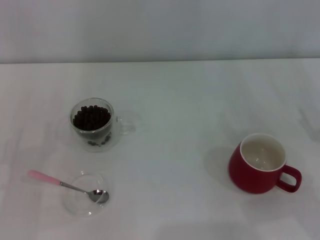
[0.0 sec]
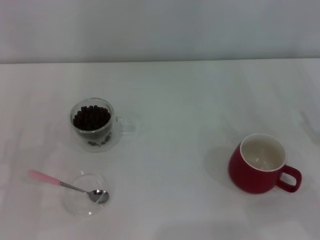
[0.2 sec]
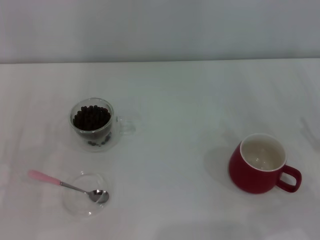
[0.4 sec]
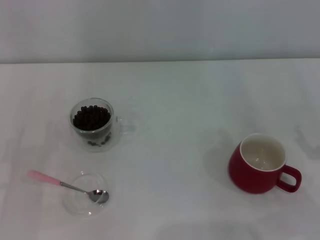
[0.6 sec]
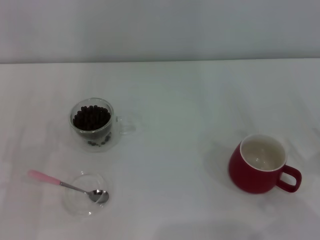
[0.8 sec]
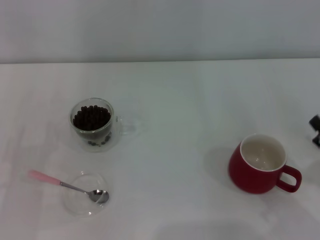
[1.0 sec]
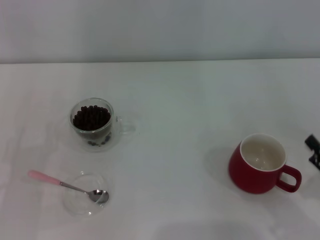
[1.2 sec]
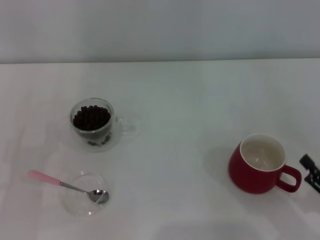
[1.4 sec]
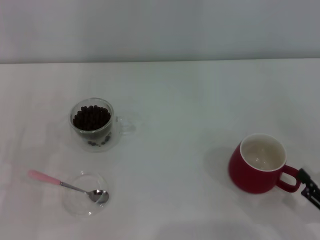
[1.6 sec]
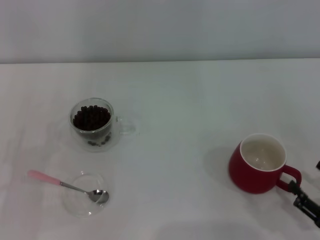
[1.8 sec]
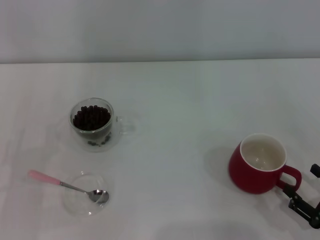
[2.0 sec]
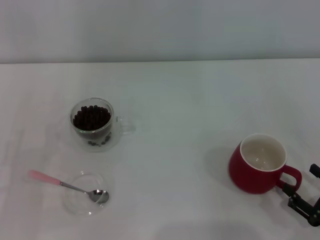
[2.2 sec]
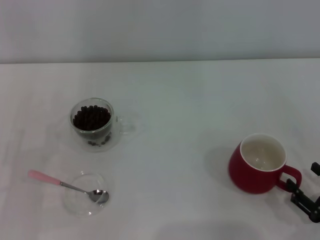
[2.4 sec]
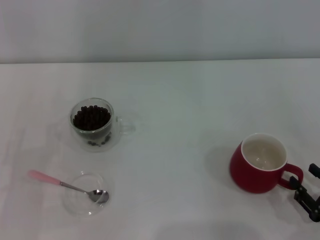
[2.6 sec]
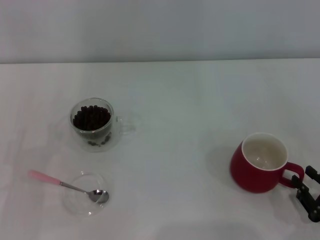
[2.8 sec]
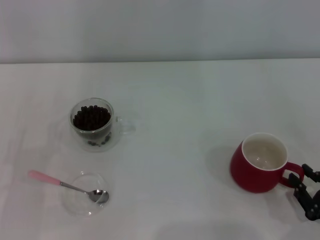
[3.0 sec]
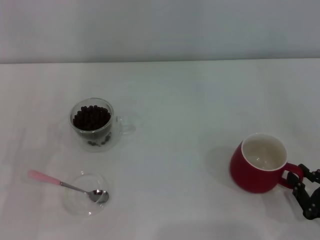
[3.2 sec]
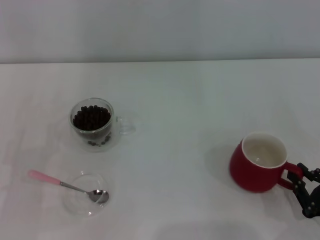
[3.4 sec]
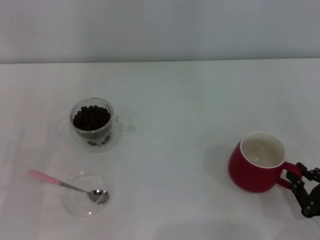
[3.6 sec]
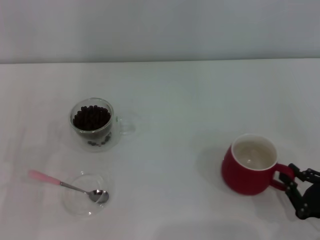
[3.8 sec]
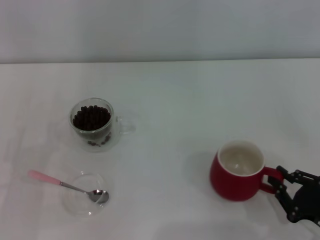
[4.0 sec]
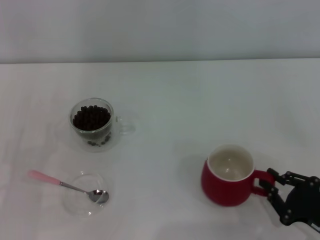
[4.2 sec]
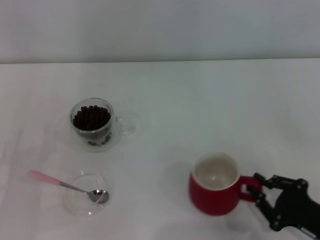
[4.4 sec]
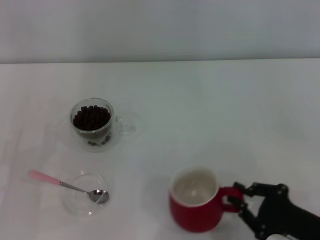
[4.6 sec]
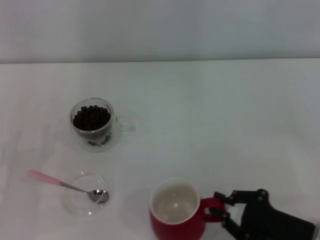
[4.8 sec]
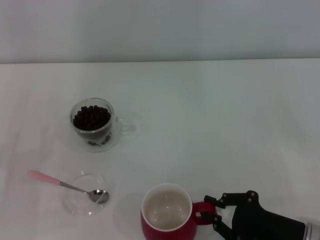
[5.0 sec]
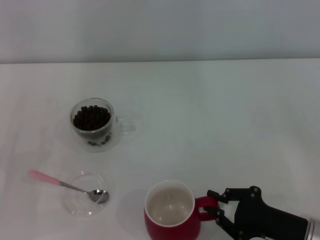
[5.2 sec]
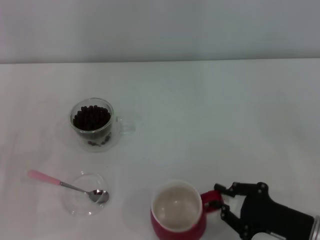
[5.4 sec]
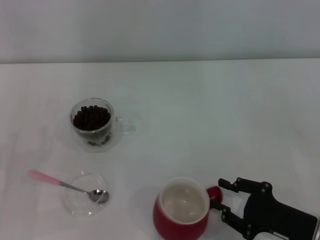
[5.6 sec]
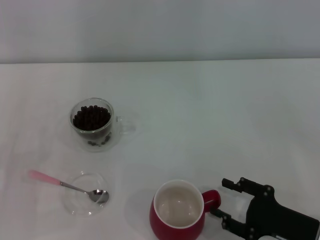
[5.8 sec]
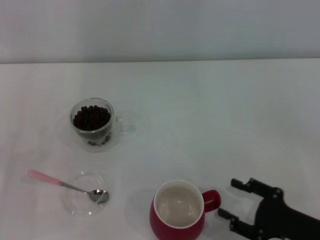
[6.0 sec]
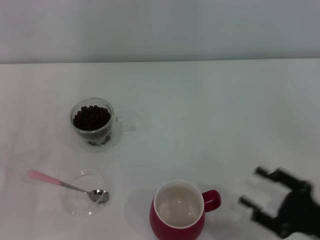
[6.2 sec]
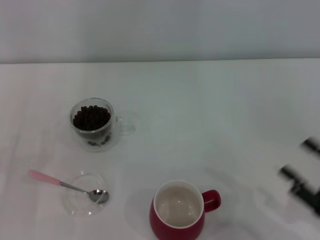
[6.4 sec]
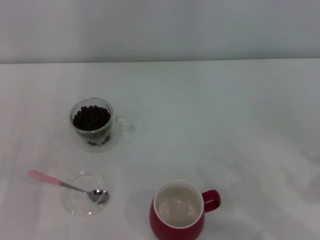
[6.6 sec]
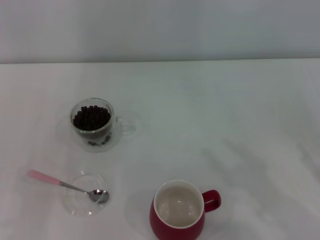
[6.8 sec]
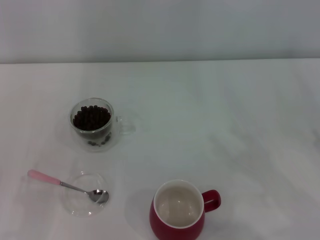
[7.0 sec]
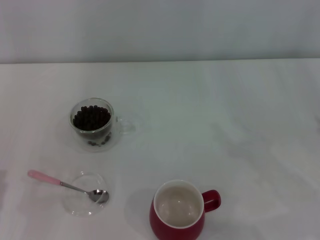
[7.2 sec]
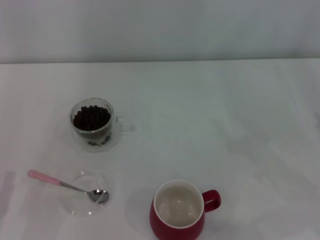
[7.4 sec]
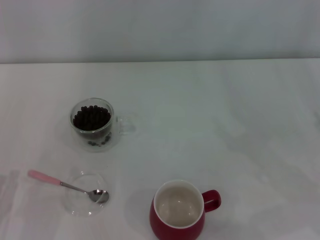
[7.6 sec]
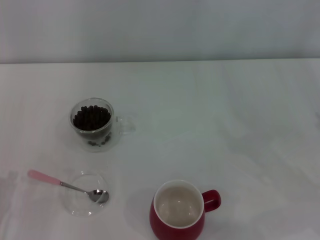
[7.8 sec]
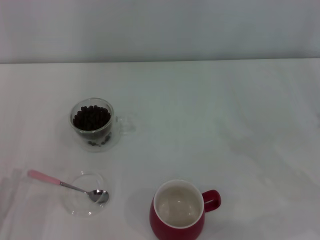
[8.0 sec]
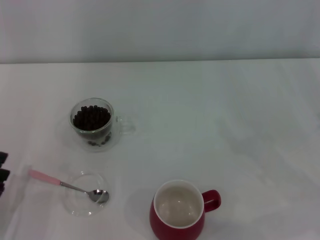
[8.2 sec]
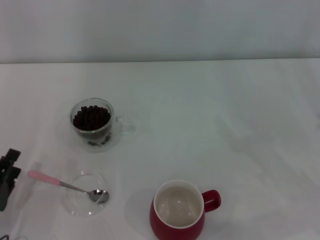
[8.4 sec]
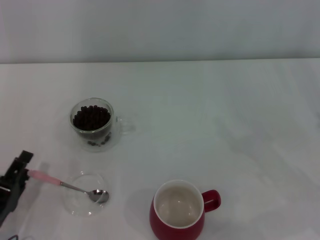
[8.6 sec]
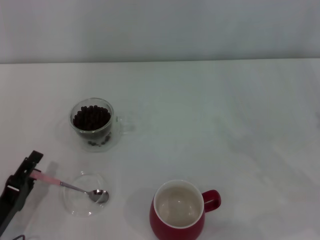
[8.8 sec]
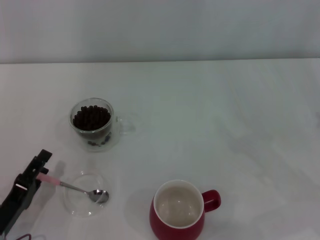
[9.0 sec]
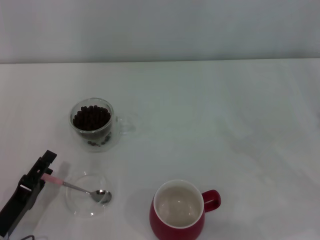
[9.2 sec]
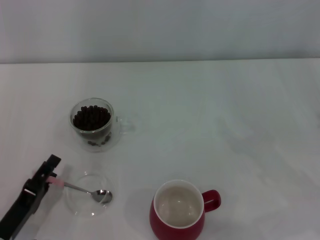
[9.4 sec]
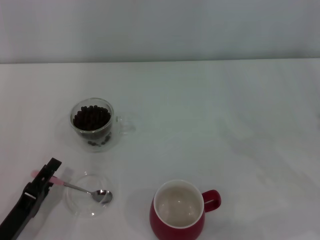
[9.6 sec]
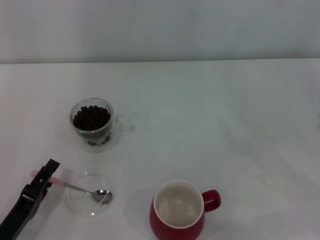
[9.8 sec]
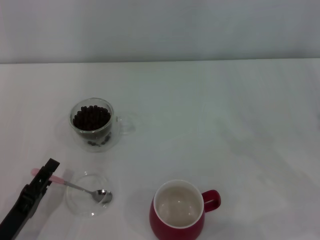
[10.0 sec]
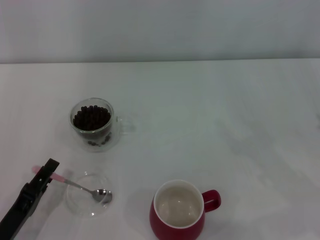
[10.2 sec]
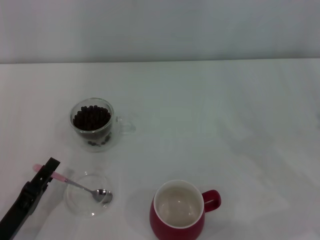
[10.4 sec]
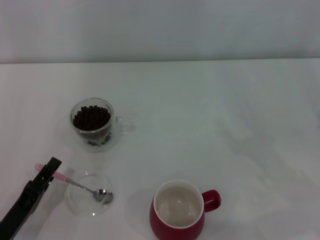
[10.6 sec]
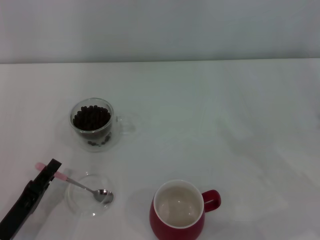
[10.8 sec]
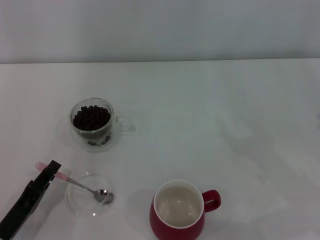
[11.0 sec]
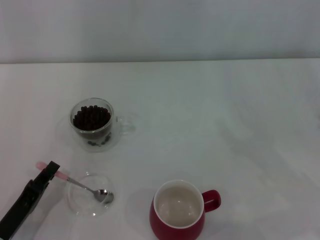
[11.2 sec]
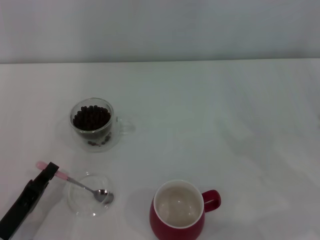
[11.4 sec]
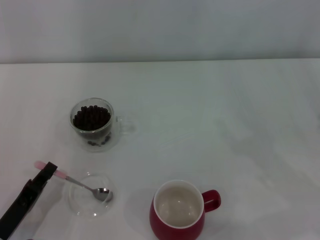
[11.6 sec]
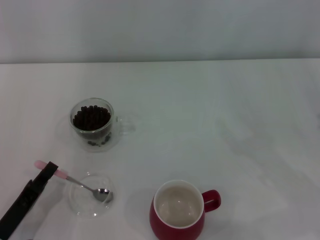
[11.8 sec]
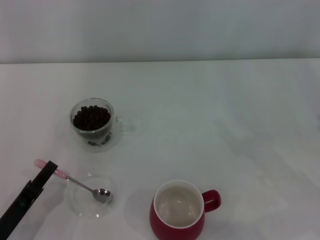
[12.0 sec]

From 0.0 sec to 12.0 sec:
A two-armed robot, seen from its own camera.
Task of the whole recording: Use a pink spoon to take out the coffee beans from the glass and pour them into the red cup.
From 0.0 sec to 1.6 sec: The right gripper heads backward and downward, covering about 10 cm.
From 1.6 sec to 3.0 sec: The right gripper closes.
From 3.0 sec to 4.4 sec: The grippers move only a little.
From 4.4 sec to 6.0 sec: The right gripper opens.
From 6.0 sec to 7.6 sec: The right gripper moves to the right and upward, about 15 cm.
From 7.6 sec to 9.0 sec: The left gripper shifts by about 5 cm.
From 9.0 sec to 10.4 sec: The grippers make only small movements.
From 10.4 sec to 12.0 sec: The left gripper closes up.

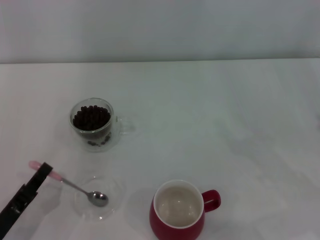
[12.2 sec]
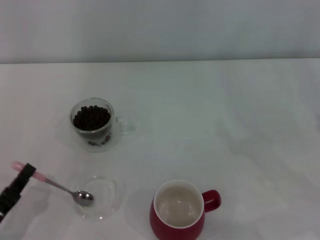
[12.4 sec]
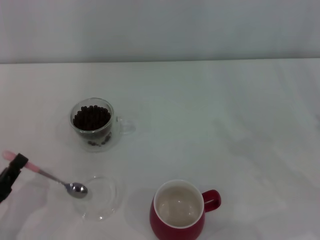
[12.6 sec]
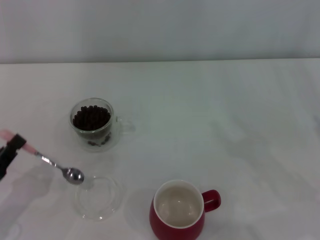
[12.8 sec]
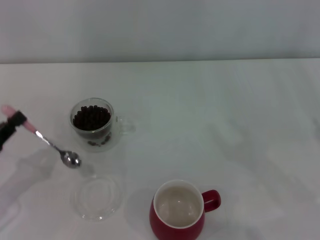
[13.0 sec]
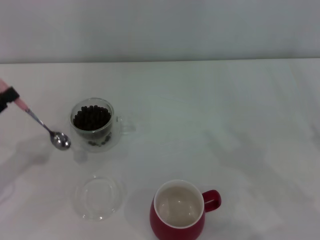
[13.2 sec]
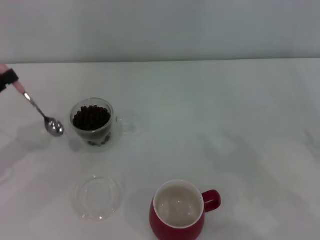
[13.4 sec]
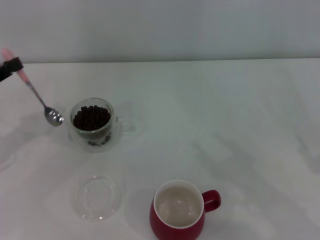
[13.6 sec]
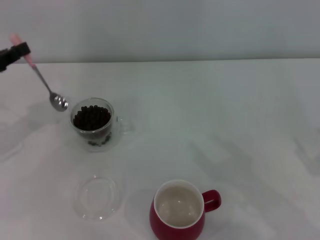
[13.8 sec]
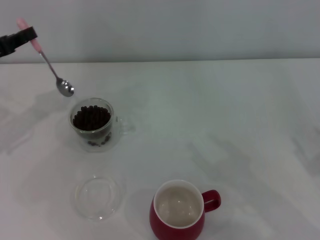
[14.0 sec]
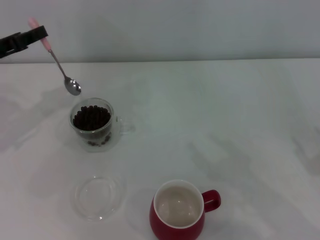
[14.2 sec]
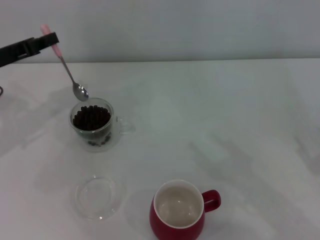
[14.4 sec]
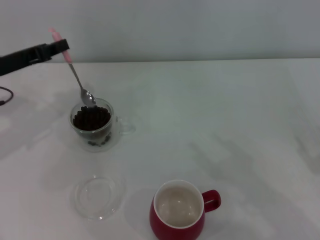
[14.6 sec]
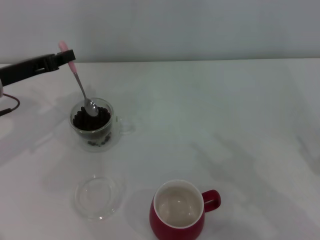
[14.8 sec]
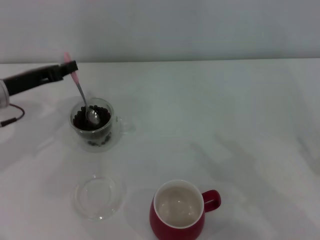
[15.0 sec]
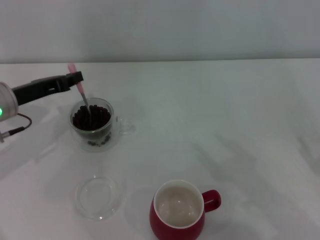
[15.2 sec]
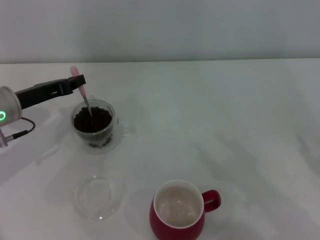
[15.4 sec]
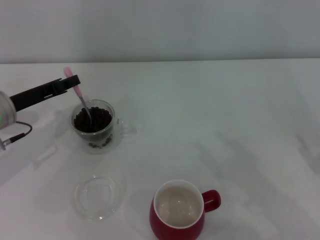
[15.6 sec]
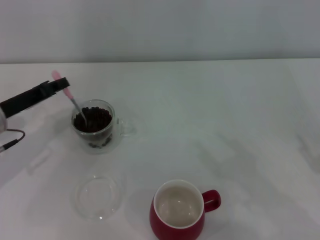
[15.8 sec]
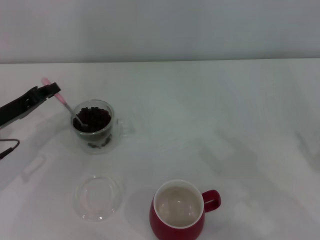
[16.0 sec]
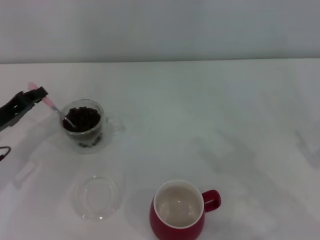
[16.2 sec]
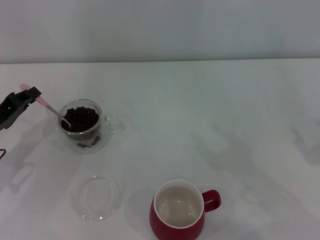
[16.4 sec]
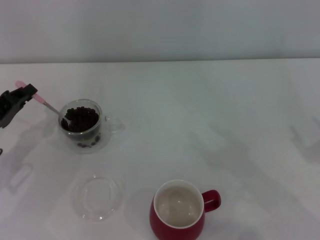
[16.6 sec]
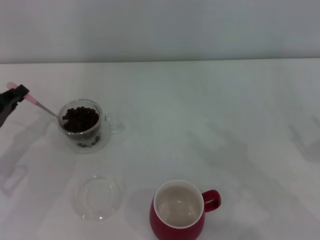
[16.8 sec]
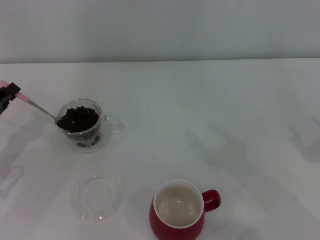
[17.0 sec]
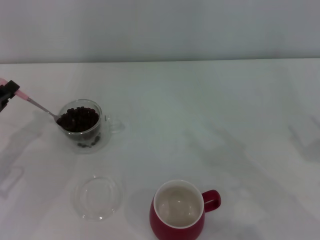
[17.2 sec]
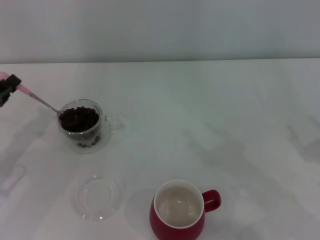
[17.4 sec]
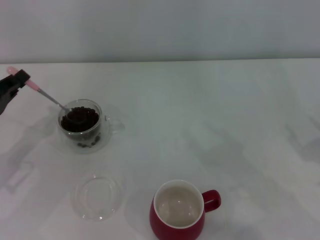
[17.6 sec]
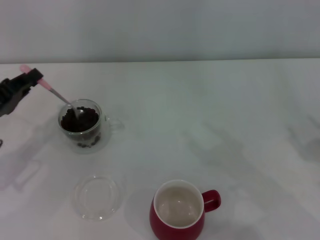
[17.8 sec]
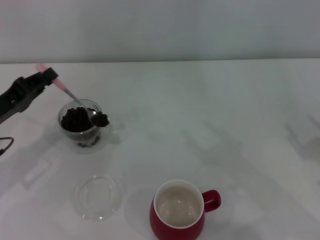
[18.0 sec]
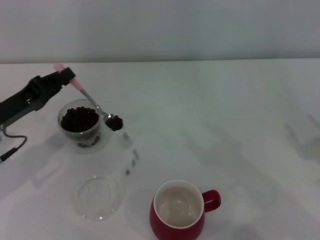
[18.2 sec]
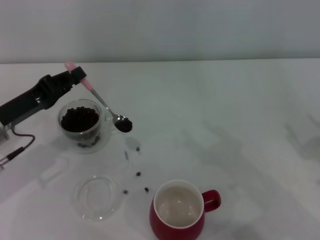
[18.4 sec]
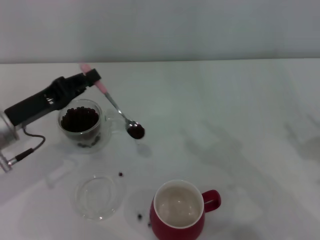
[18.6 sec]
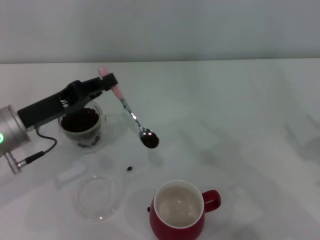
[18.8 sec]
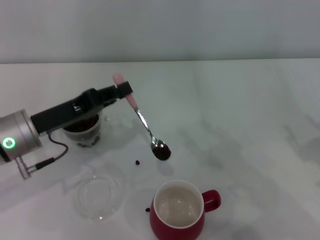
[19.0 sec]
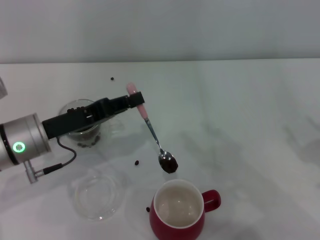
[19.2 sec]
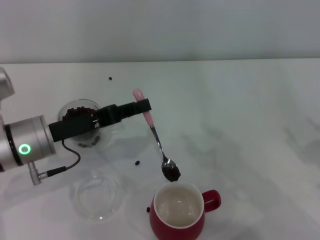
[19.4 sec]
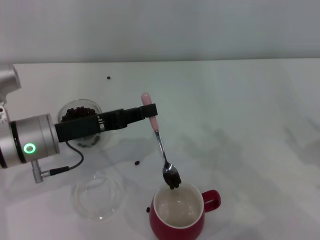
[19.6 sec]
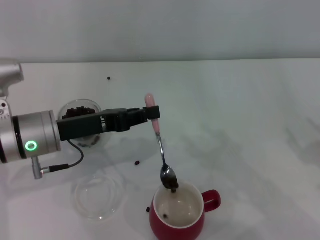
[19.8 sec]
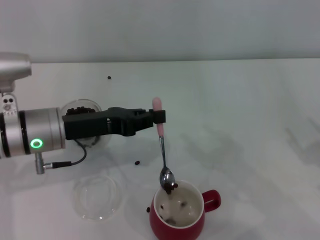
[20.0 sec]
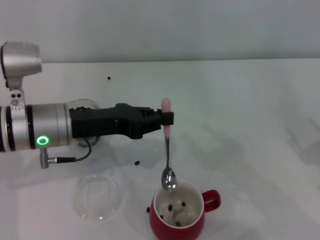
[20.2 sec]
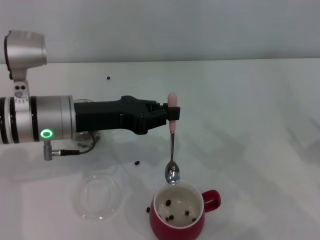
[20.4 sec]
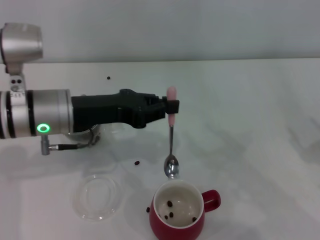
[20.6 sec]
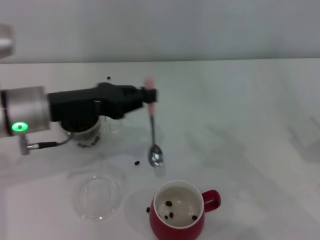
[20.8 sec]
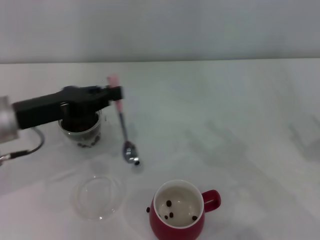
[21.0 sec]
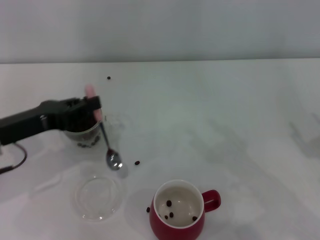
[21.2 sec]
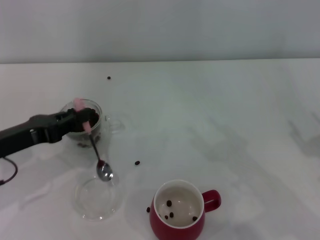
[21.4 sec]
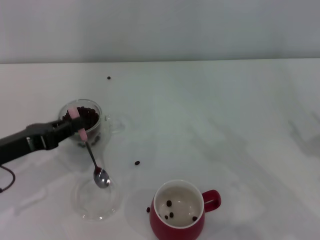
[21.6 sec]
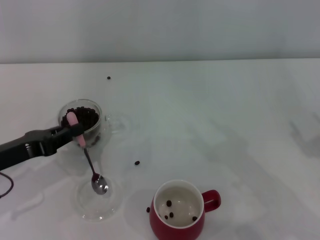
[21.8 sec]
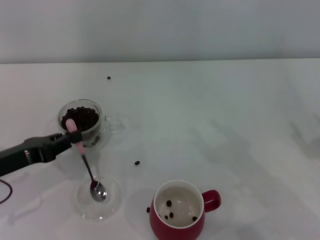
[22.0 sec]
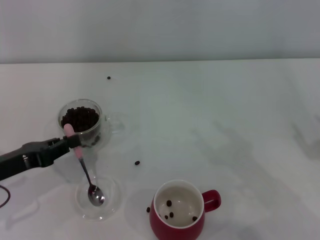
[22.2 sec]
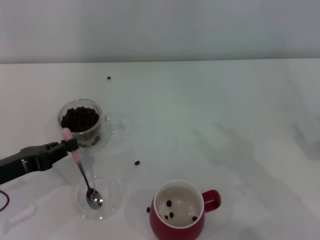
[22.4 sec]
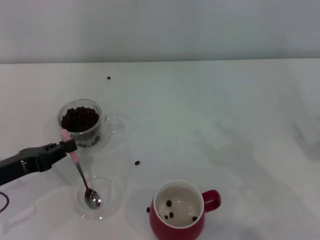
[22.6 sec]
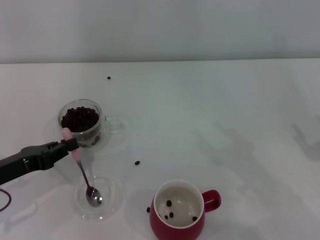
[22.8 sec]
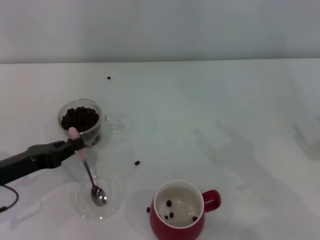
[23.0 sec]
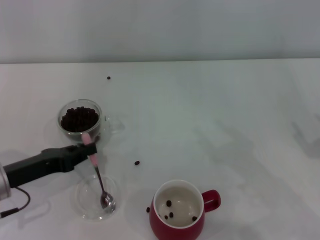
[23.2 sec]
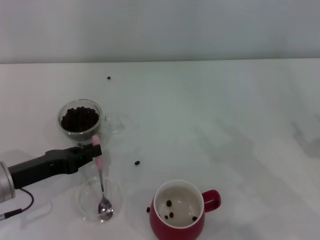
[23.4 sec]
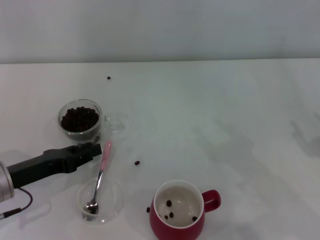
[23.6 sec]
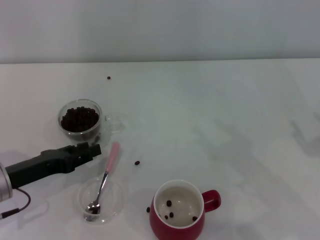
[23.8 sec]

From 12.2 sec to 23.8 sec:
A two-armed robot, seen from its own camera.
Task of the whole recording: Use a pink spoon to take out the coffee beans from the glass and pour them into the red cup.
From 12.2 sec to 13.6 sec: The left gripper is displaced forward, upward and to the left by roughly 20 cm.
From 13.6 sec to 15.0 sec: The left gripper travels to the right and forward by about 10 cm.
From 15.0 sec to 16.6 sec: The left gripper travels backward and downward by roughly 10 cm.
From 16.6 sec to 18.0 sec: There are only small adjustments of the grippers.
From 18.0 sec to 19.4 sec: The left gripper heads to the right, covering approximately 10 cm.
From 19.4 sec to 21.0 sec: The left gripper moves about 5 cm.
From 21.0 sec to 22.4 sec: The left gripper heads downward, to the left and backward, covering approximately 10 cm.
From 22.4 sec to 23.8 sec: The left gripper opens its fingers.
